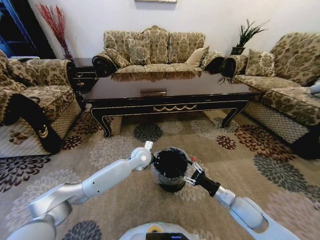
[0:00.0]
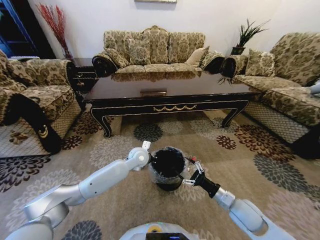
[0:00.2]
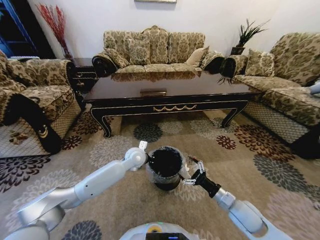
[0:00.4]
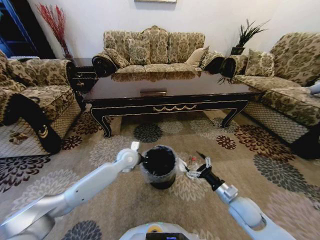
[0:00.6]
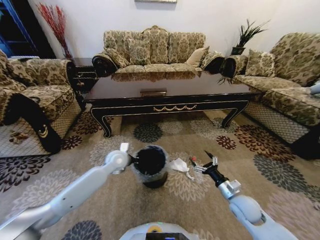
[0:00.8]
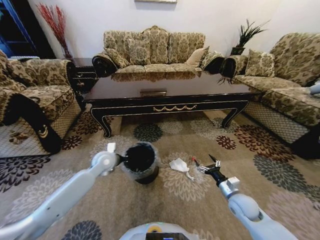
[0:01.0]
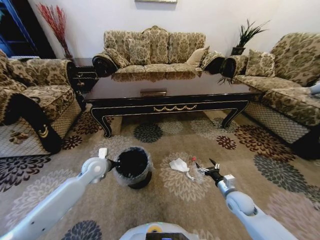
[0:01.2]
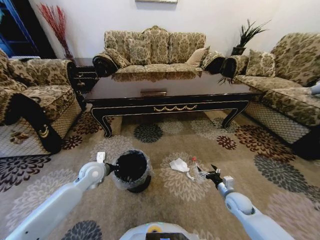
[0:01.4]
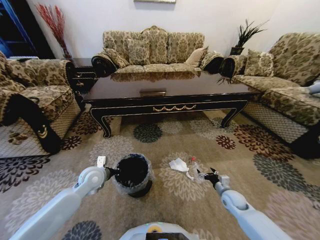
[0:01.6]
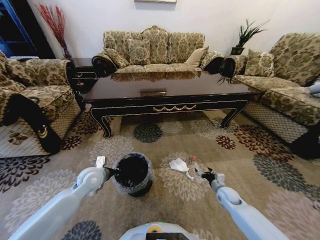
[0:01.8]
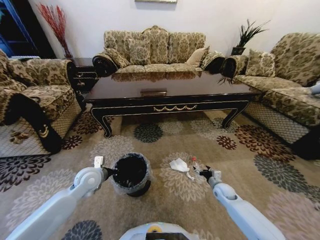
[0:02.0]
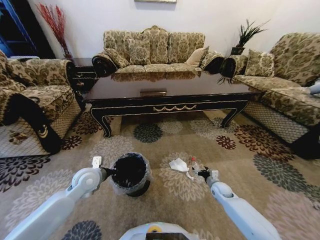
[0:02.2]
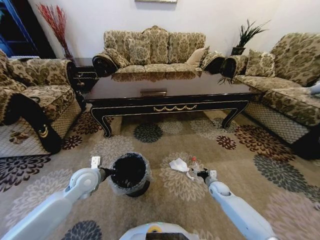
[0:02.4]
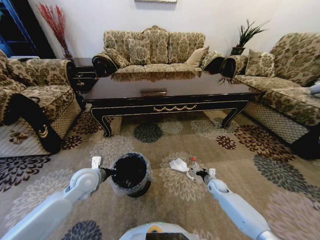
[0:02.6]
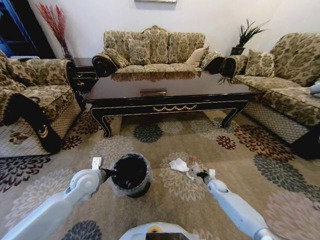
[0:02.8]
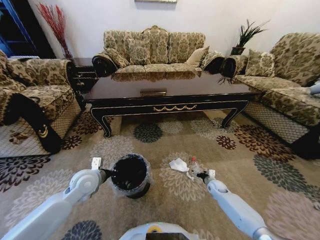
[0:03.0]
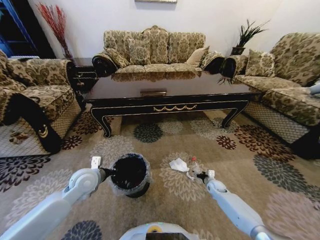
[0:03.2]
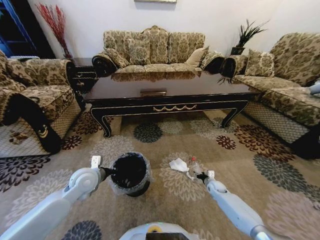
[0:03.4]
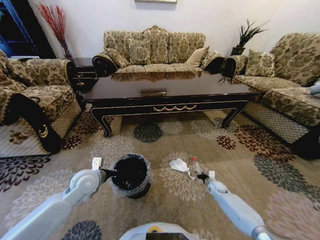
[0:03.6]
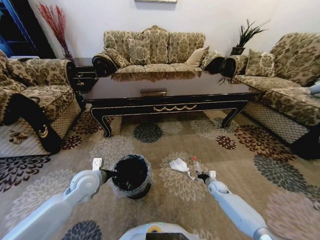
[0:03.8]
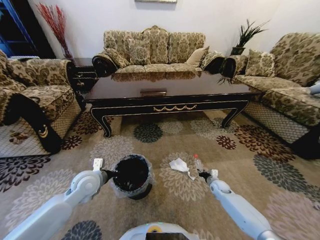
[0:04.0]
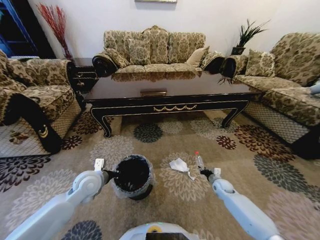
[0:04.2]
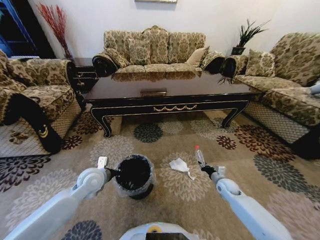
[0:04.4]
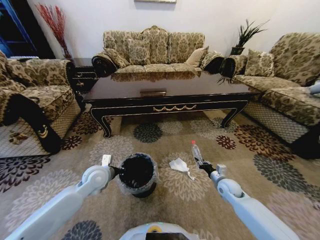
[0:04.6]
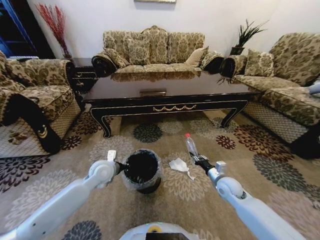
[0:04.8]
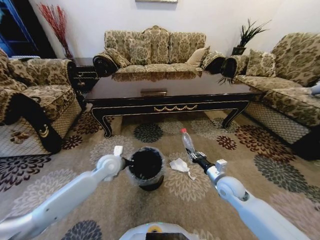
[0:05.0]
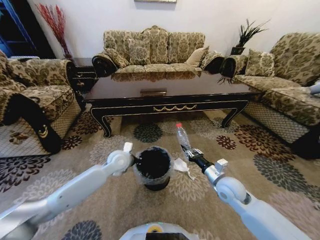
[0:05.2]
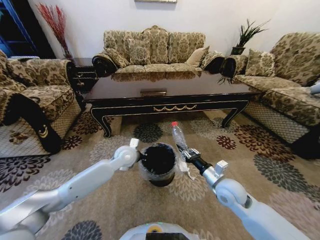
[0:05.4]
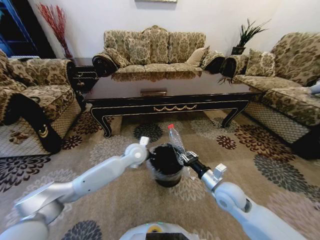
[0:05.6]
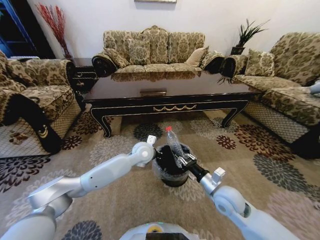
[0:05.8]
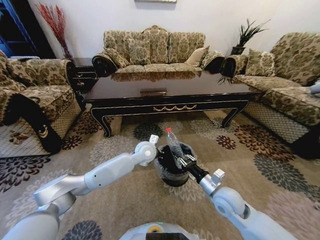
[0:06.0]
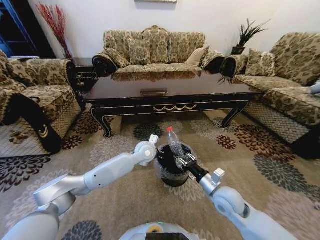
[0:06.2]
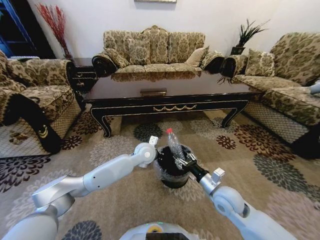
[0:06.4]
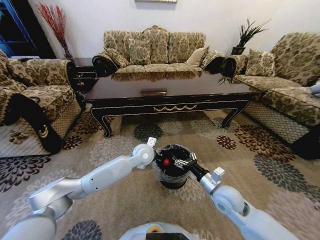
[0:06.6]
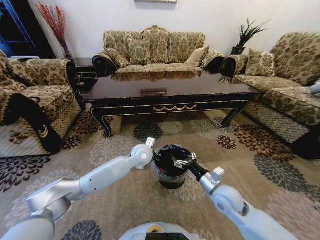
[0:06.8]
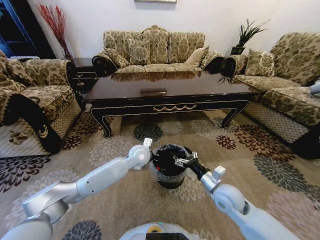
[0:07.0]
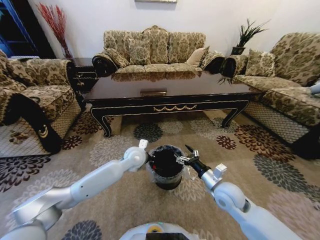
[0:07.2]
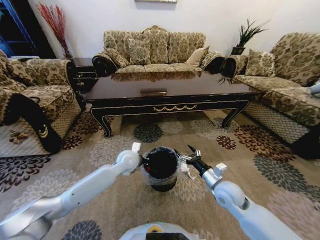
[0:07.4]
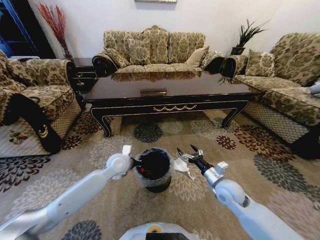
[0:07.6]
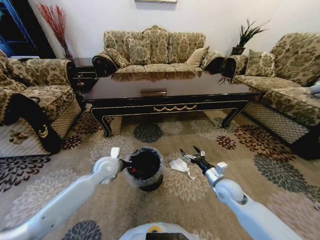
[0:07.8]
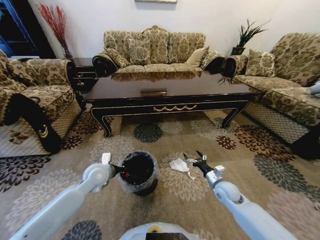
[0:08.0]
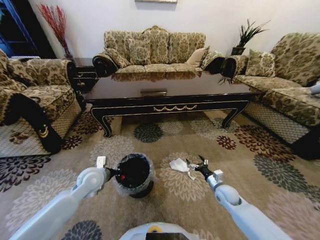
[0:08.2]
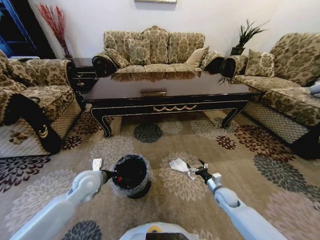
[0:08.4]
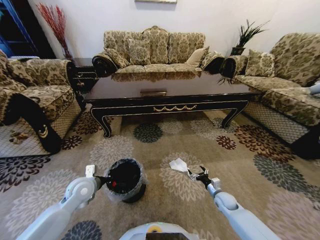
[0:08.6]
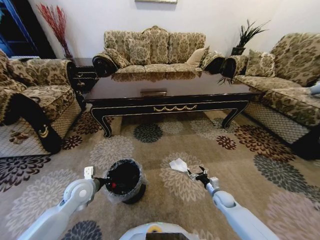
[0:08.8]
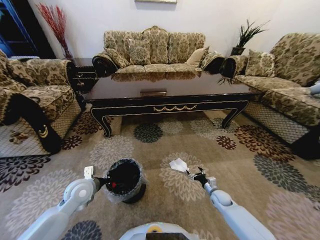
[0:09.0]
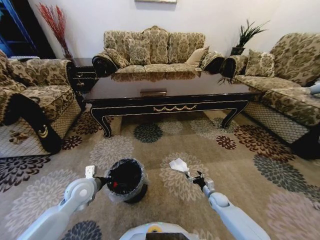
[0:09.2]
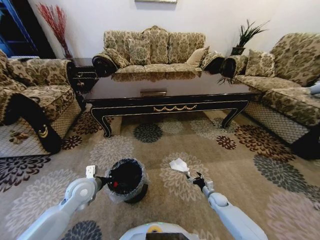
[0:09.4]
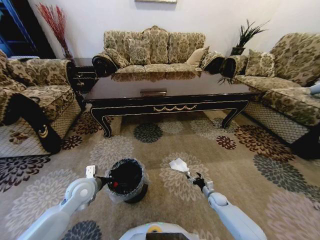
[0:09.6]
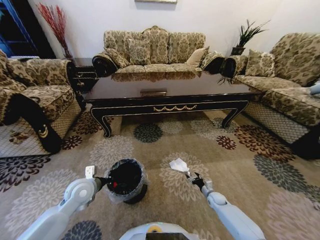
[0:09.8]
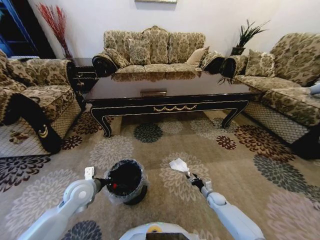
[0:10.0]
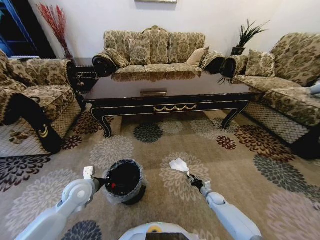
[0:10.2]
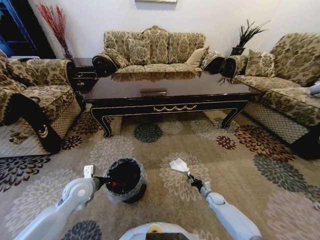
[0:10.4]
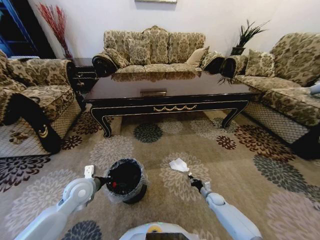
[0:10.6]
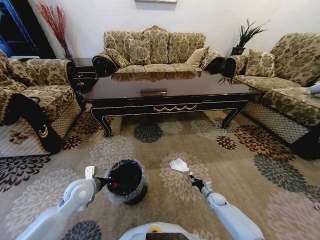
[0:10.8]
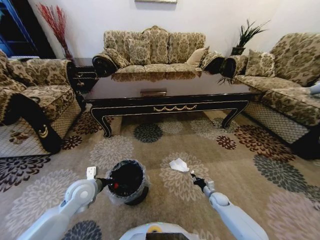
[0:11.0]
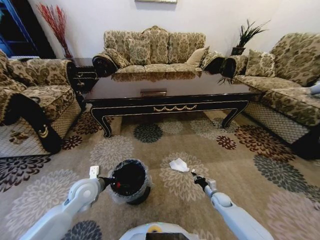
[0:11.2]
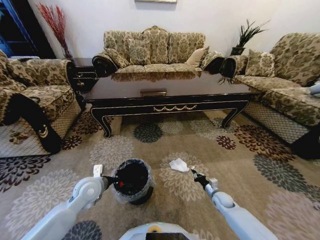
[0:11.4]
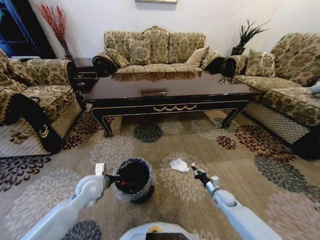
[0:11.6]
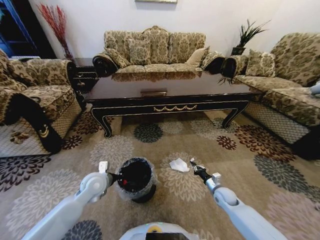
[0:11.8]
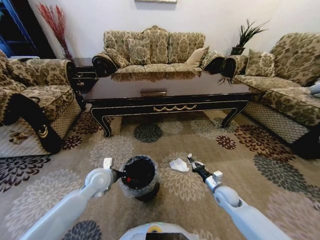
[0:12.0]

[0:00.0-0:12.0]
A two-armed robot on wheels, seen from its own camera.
Task of the whole recording: Move to the front of the table and pick up the trash from the floor, then place it into the trash bin.
0.0 to 1.6 s: The right gripper is displaced downward, forward and to the right by some 15 cm, and opens its fingers. The left gripper goes roughly 20 cm to the left and backward.
1.6 to 3.0 s: The right gripper heads forward and downward, covering roughly 10 cm.
3.0 to 4.4 s: The right gripper shifts roughly 10 cm upward, and closes its fingers.
4.4 to 6.0 s: The right gripper is displaced upward, to the left and backward by roughly 20 cm. Meanwhile the left gripper shifts some 25 cm to the right and forward.
6.0 to 7.6 s: The right gripper opens its fingers, while the left gripper heads to the left, covering some 15 cm.
7.6 to 9.0 s: The left gripper moves to the left and backward, approximately 15 cm, while the right gripper travels downward by about 20 cm.
9.0 to 10.4 s: The right gripper shifts roughly 5 cm downward, and closes its fingers.
10.4 to 12.0 s: The right gripper heads upward, covering roughly 15 cm; the left gripper travels to the right by about 5 cm.

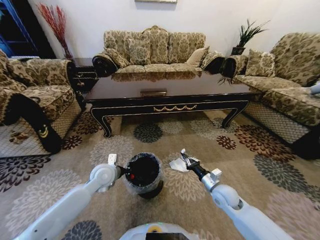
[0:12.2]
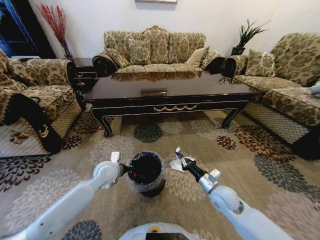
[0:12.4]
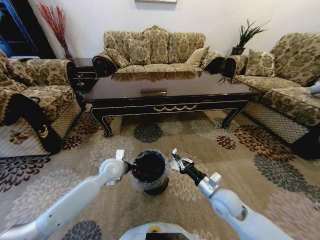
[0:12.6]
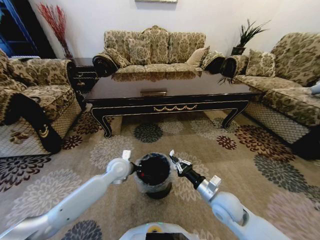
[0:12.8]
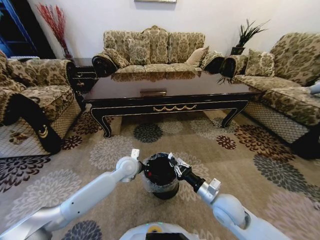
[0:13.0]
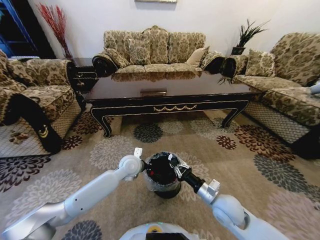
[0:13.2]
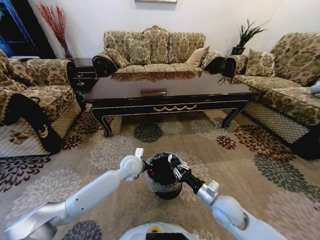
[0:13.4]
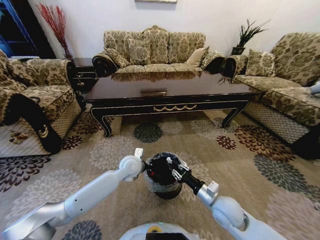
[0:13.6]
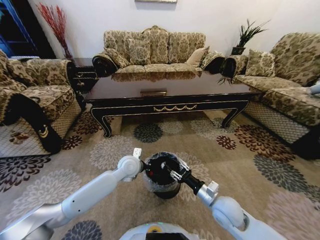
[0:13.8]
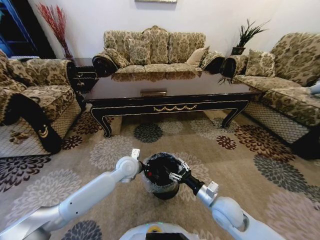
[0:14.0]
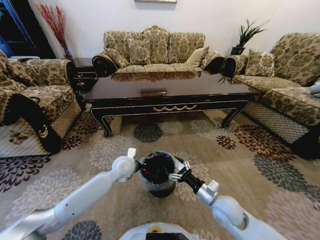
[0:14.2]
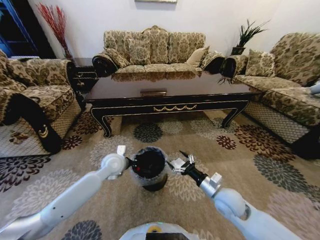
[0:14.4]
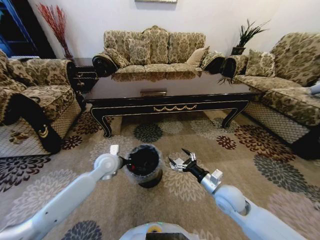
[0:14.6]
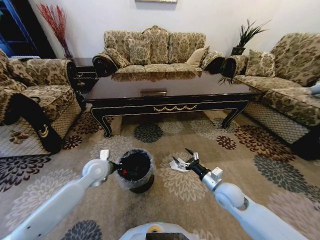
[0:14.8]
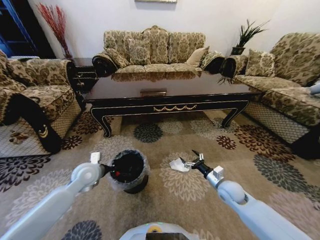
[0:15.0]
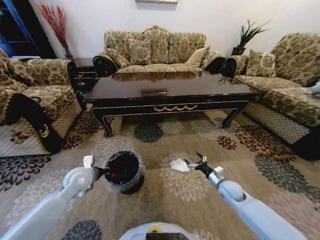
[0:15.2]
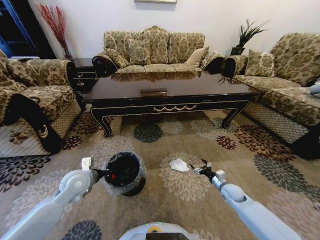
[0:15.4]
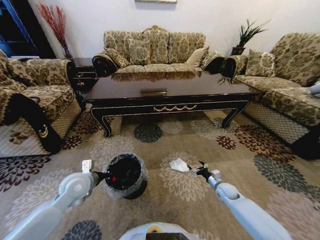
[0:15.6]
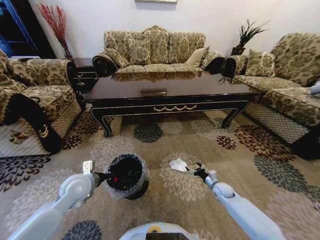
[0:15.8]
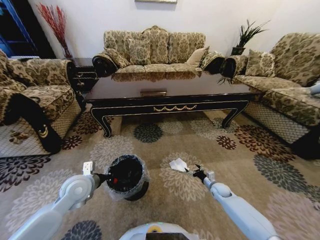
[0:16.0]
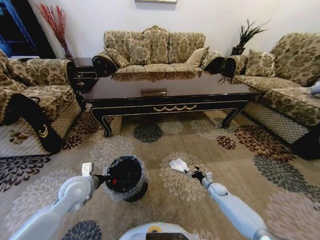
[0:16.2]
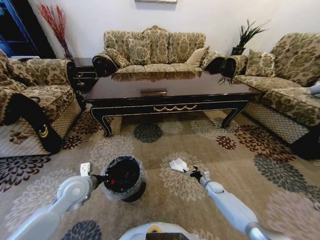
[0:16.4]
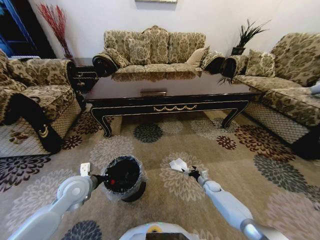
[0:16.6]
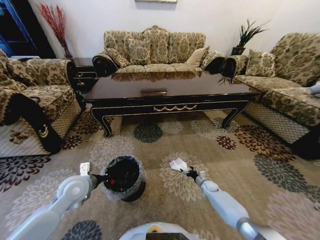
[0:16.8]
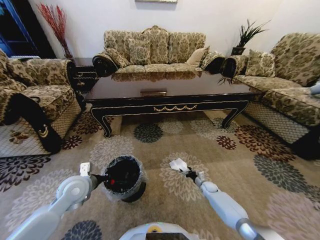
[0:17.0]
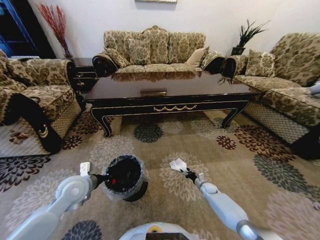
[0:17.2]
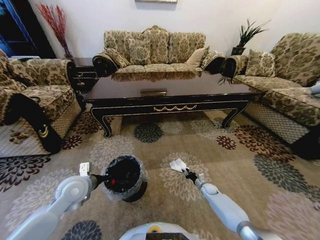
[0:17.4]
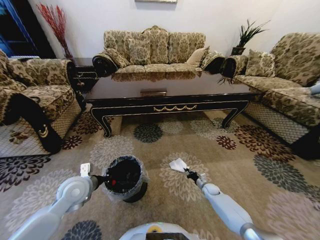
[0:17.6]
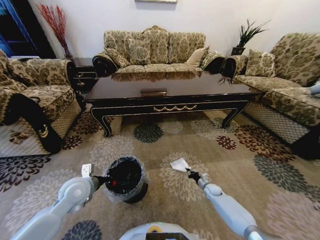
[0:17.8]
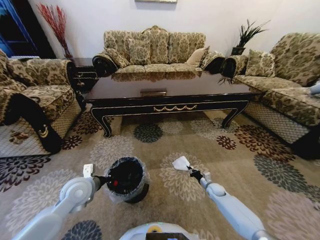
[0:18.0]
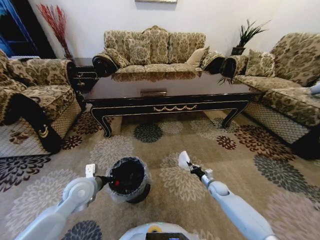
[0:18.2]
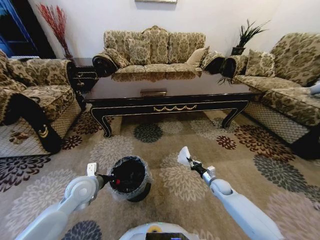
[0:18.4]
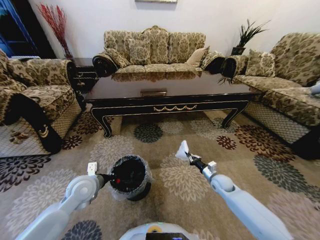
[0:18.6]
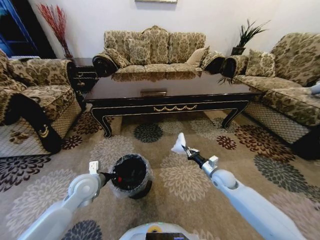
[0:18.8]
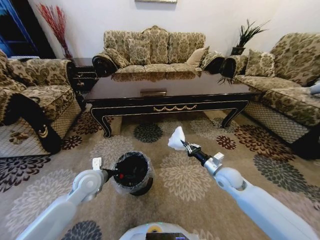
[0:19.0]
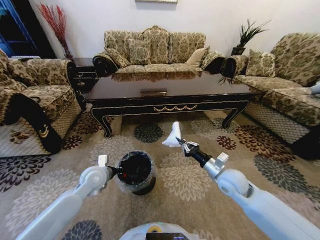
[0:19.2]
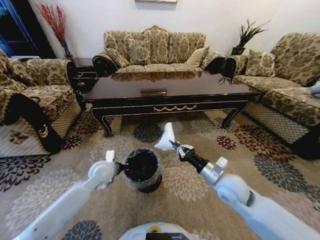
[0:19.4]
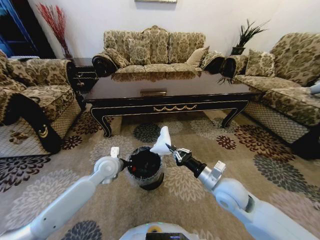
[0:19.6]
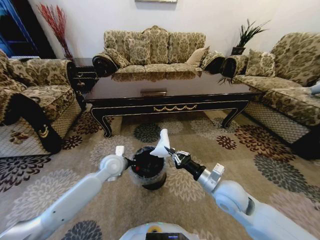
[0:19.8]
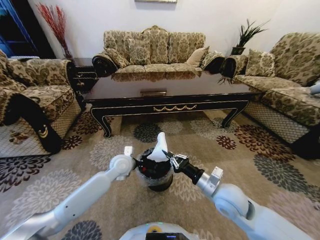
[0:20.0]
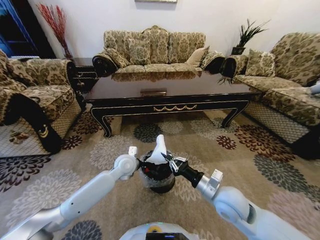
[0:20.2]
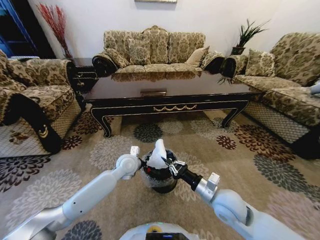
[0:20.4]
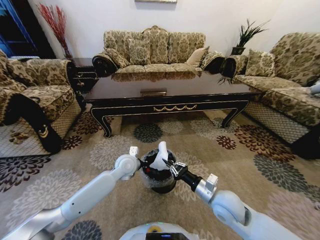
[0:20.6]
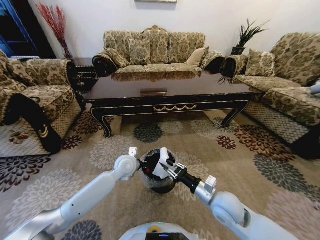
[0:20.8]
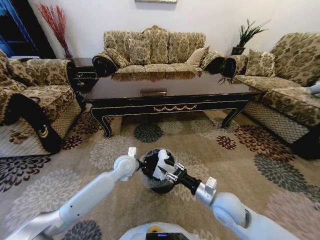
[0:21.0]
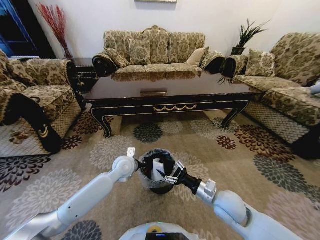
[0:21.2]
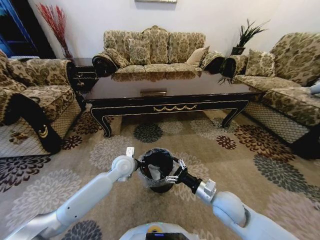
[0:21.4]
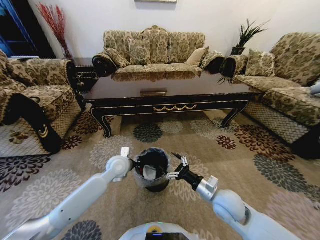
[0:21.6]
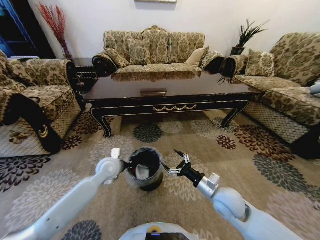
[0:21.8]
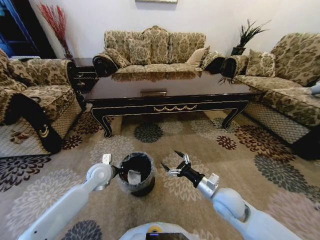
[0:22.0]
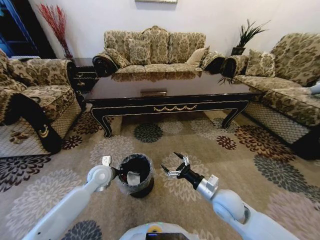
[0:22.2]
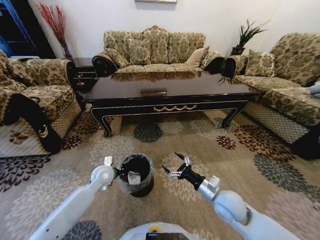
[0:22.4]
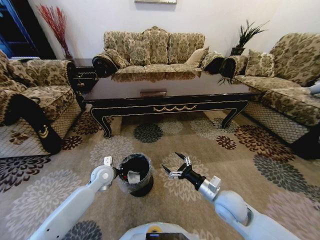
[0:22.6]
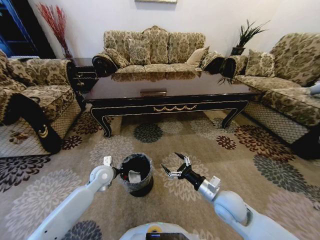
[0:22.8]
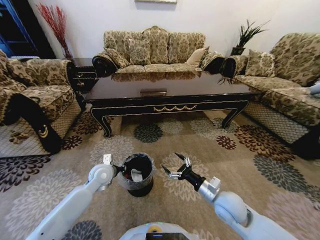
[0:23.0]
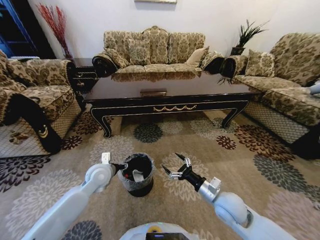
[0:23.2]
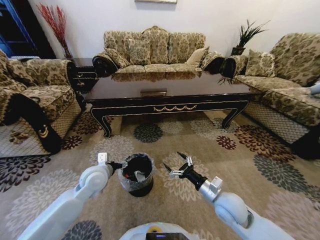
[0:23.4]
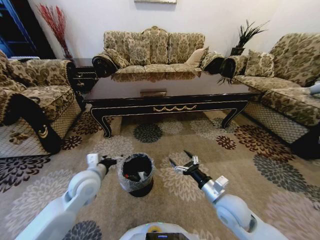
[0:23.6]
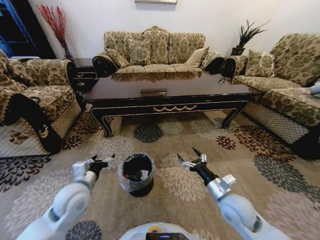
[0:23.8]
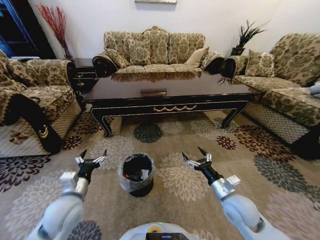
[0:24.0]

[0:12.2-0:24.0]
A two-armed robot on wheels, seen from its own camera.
Task of the whole recording: Move to the front of the table and pick up the trash from the floor, then place it into the trash bin.
12.2 to 13.6 s: The left gripper heads to the right, covering some 10 cm, while the right gripper travels backward by approximately 5 cm.
13.6 to 15.2 s: The left gripper goes approximately 20 cm to the left. Meanwhile the right gripper travels to the right, forward and downward by approximately 15 cm, and opens its fingers.
15.2 to 16.6 s: The right gripper moves downward and forward, some 15 cm.
16.6 to 18.2 s: The right gripper is displaced upward by about 5 cm, and closes.
18.2 to 19.6 s: The left gripper heads forward and to the right, covering some 10 cm; the right gripper heads upward and to the left, covering about 30 cm.
19.6 to 21.0 s: The left gripper moves to the right, approximately 5 cm. Meanwhile the right gripper moves about 5 cm, and opens.
21.0 to 22.6 s: The right gripper opens its fingers. Meanwhile the left gripper shifts approximately 10 cm to the left.
22.6 to 24.0 s: The left gripper goes approximately 15 cm backward, and opens its fingers.
